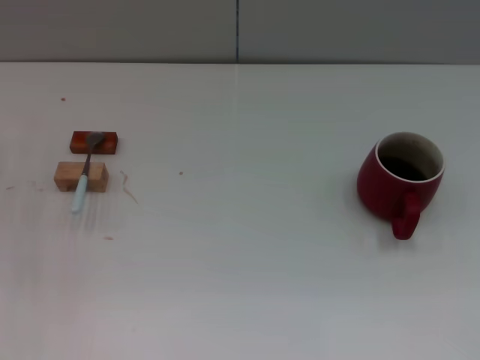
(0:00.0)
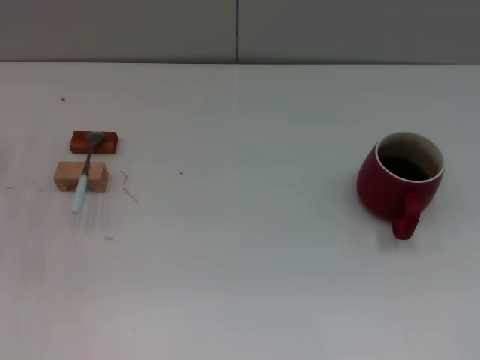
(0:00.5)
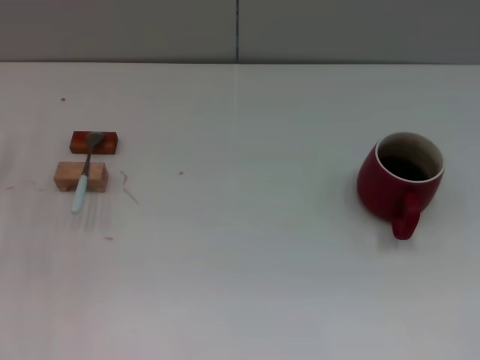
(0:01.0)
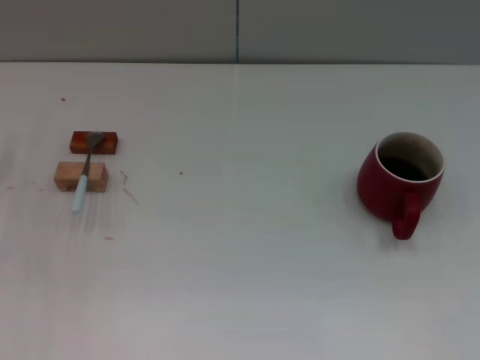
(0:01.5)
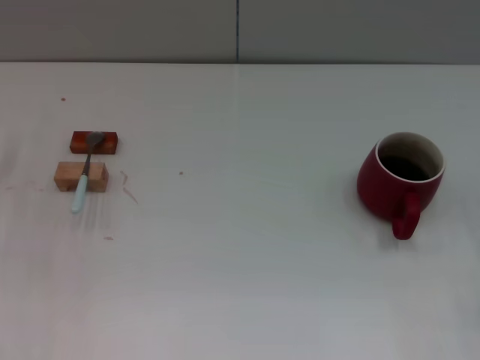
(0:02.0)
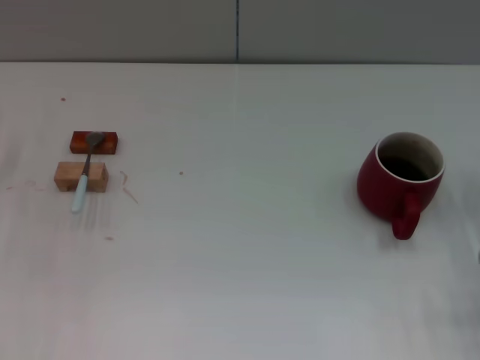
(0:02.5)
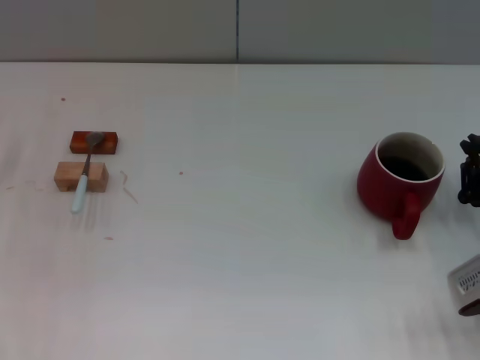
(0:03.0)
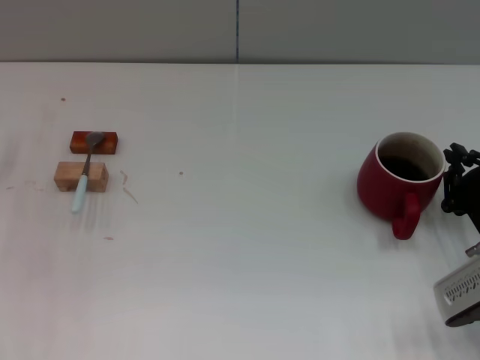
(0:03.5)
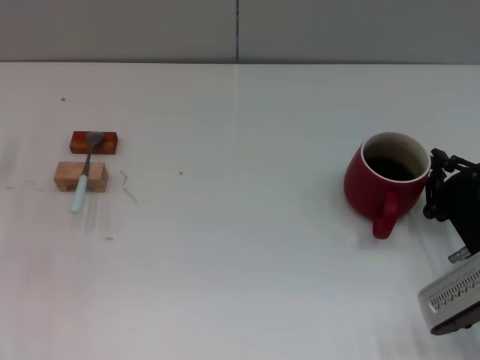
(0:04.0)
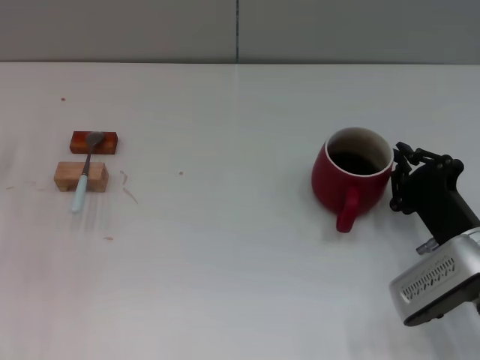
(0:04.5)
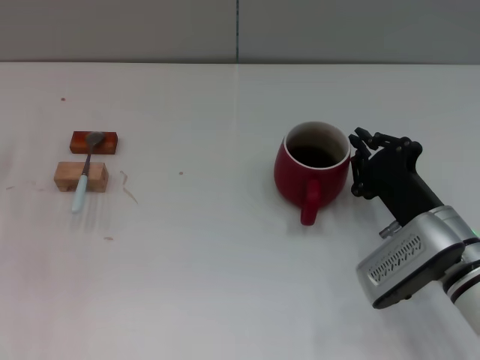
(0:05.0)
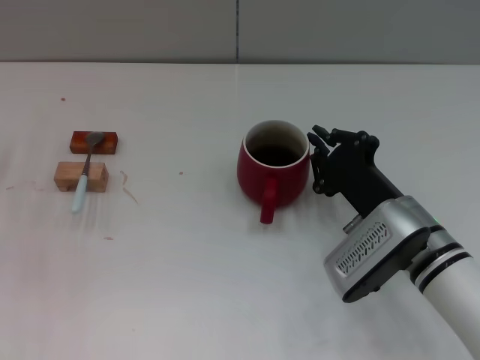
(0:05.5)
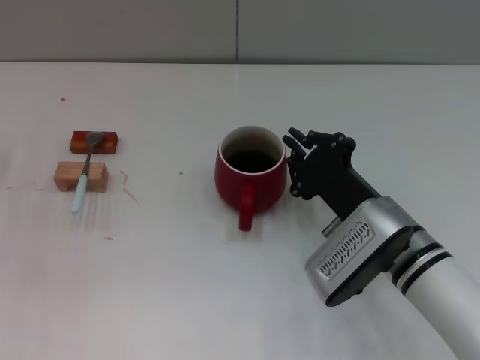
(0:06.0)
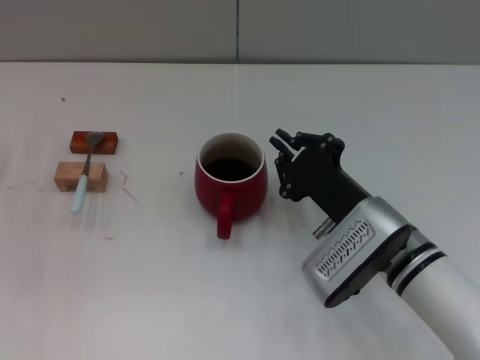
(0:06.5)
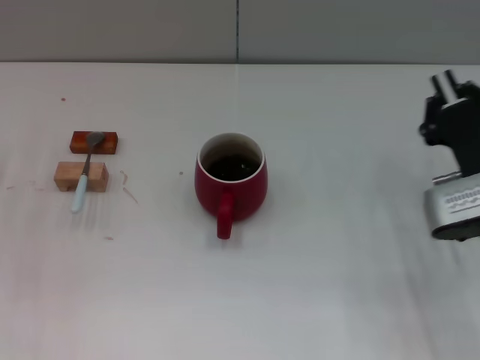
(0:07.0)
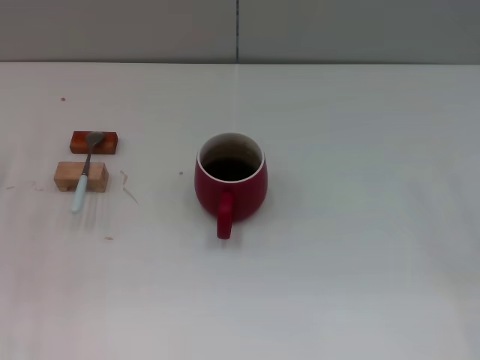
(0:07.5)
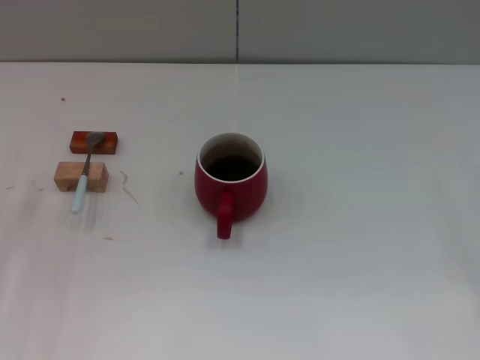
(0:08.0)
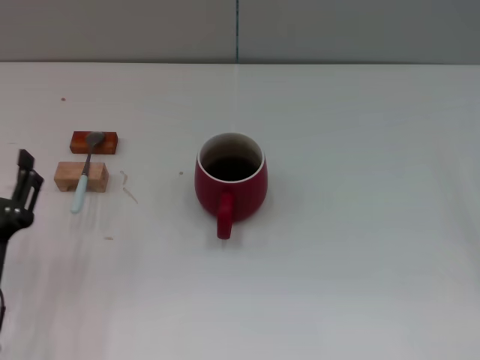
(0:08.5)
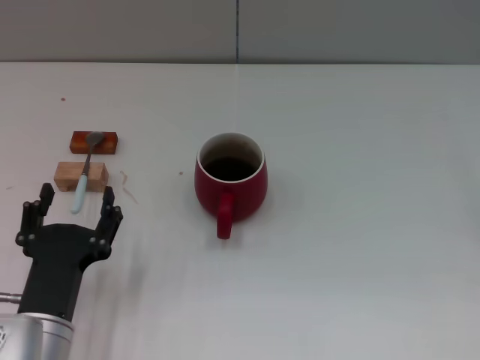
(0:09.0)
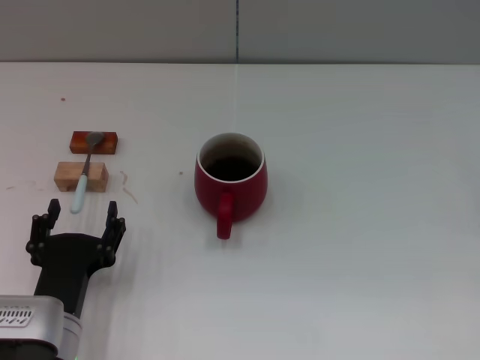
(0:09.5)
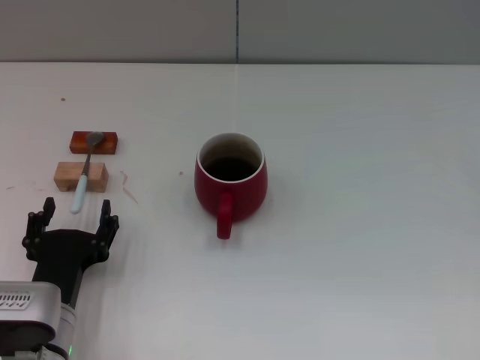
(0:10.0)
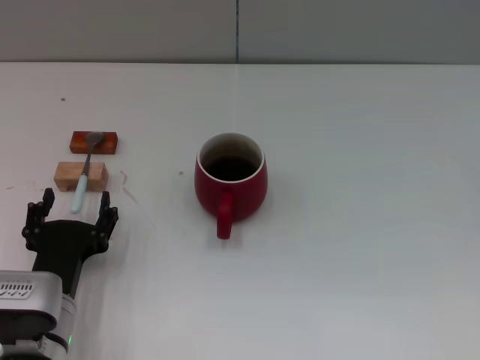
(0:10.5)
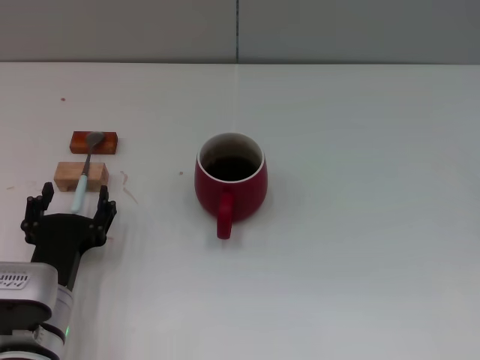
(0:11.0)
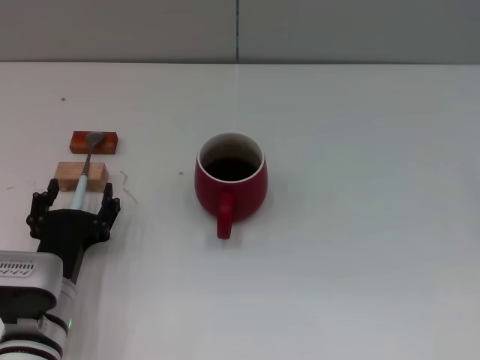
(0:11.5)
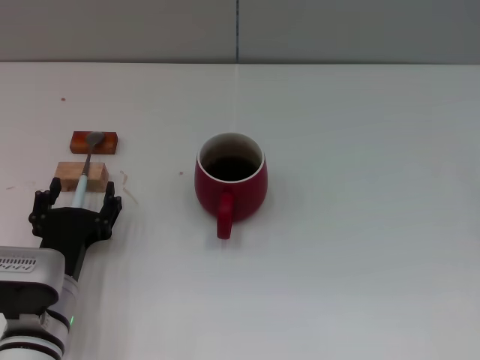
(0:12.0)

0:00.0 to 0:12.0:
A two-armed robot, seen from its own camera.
Task of the whole recording: Move the red cup to the center, lift the blue spoon, stir it three times in the cup, and put the spoon into the cup.
Step, 0:00.0 to 0:06.5: Move the cup with coffee to the center of view with the right gripper.
0:02.0 to 0:04.0: The right gripper travels to the left by roughly 10 cm.
0:04.0 to 0:06.0: The right gripper moves to the left, roughly 10 cm.
0:06.0 to 0:08.0: The right gripper is displaced to the right by about 25 cm, and opens up; the left gripper heads backward, covering roughly 5 cm.
0:08.0 to 0:10.0: The left gripper travels to the right, backward and downward by about 15 cm.
0:10.0 to 0:12.0: The grippers stay close to where they were, moving slightly.

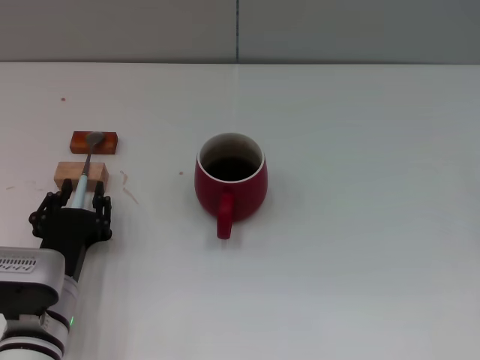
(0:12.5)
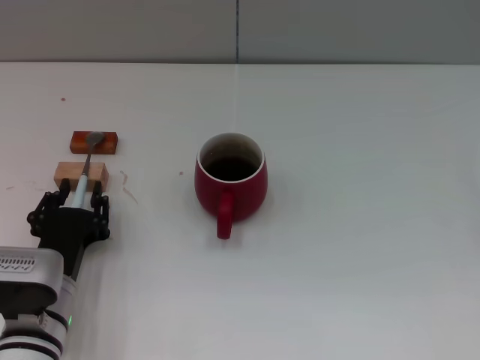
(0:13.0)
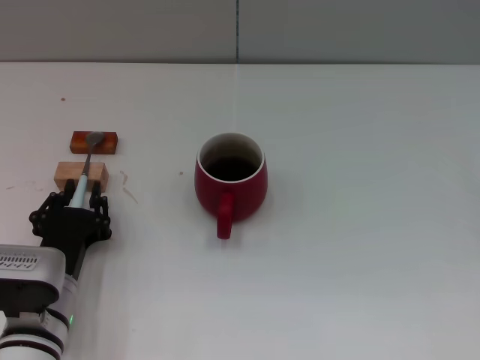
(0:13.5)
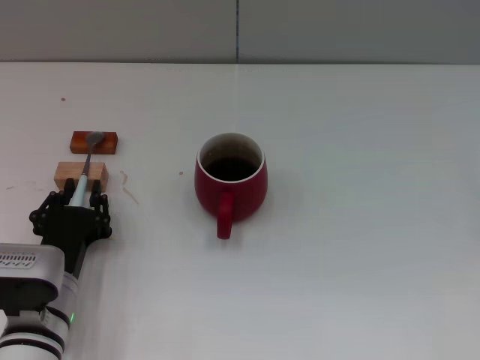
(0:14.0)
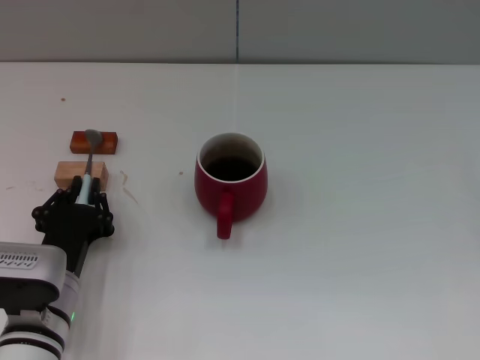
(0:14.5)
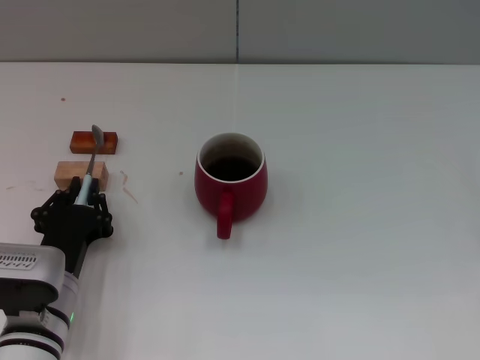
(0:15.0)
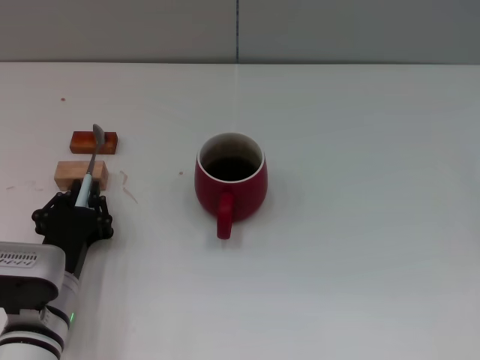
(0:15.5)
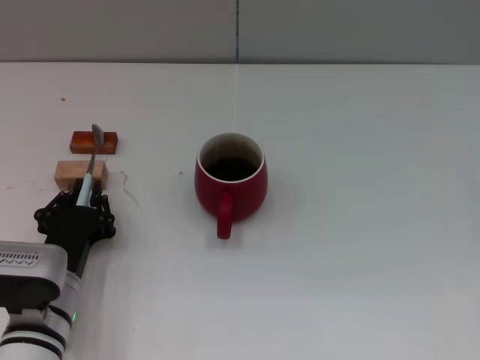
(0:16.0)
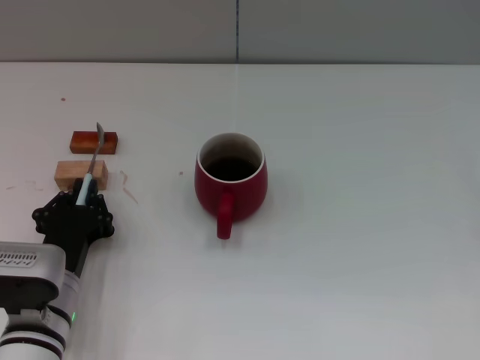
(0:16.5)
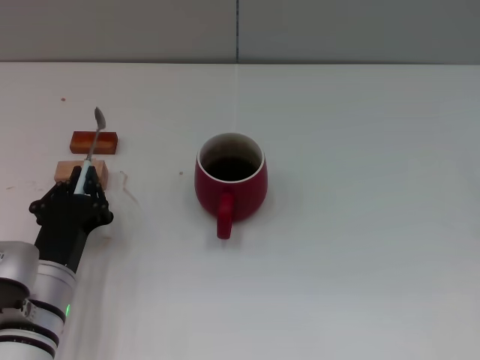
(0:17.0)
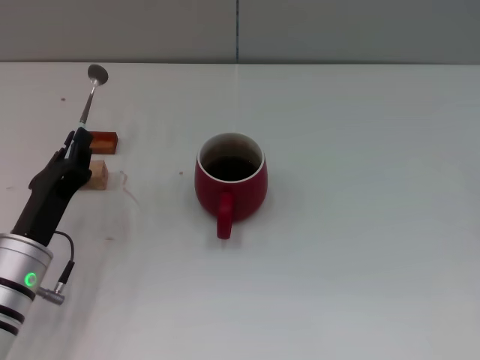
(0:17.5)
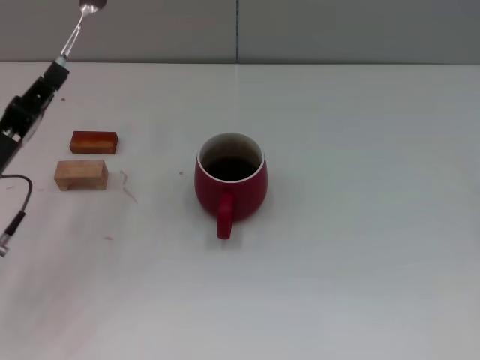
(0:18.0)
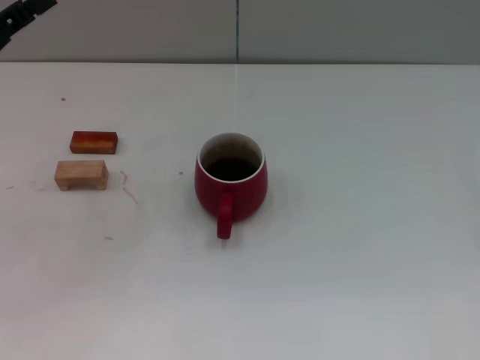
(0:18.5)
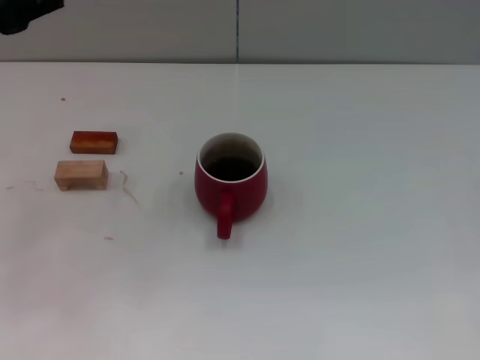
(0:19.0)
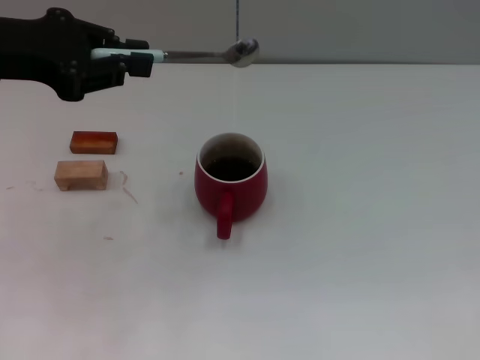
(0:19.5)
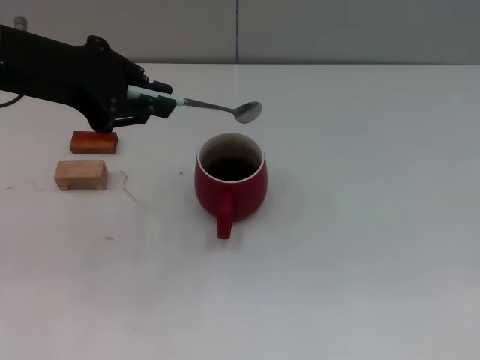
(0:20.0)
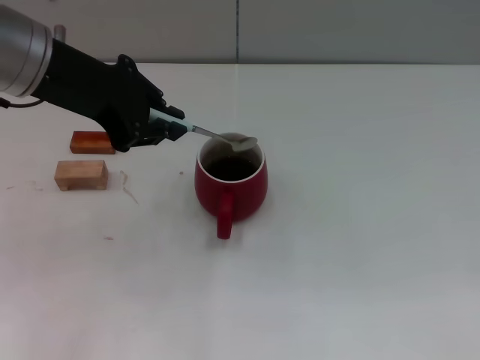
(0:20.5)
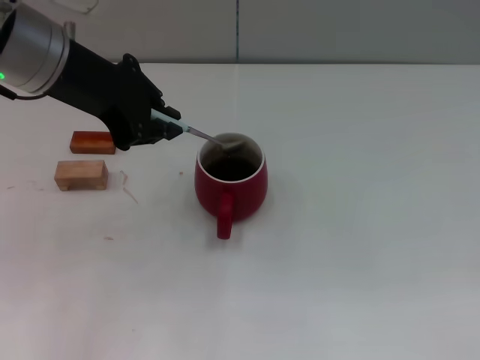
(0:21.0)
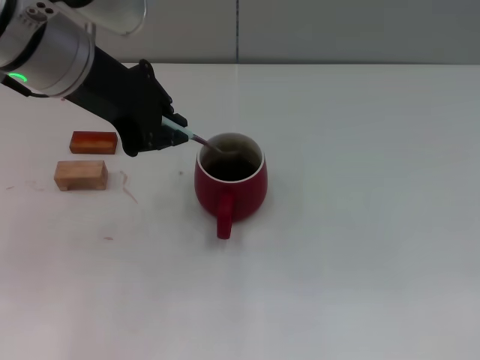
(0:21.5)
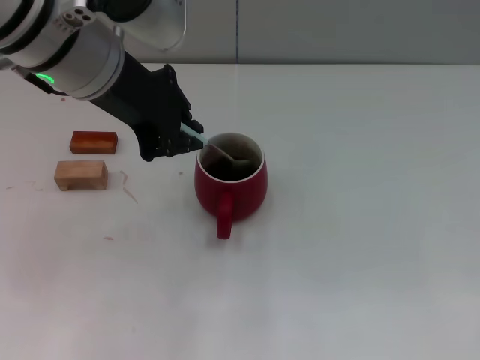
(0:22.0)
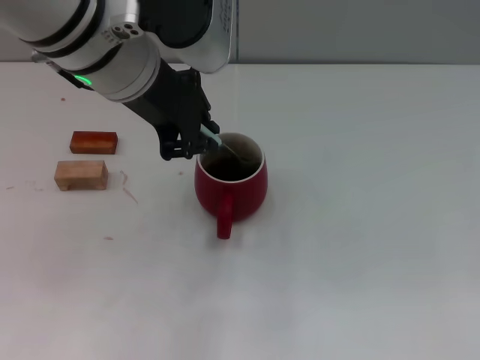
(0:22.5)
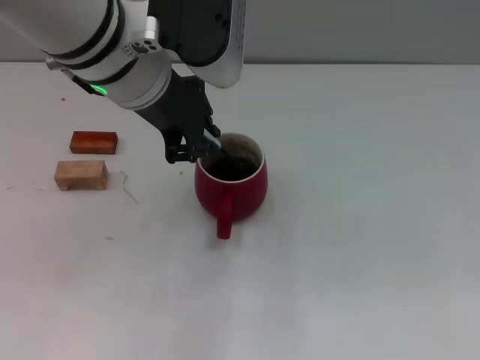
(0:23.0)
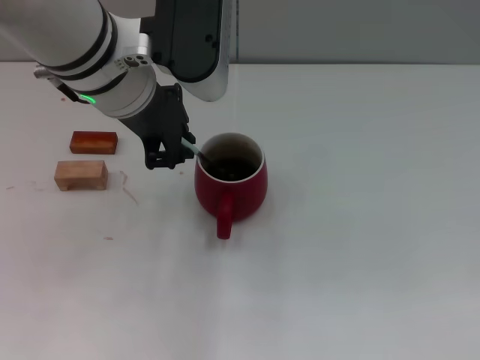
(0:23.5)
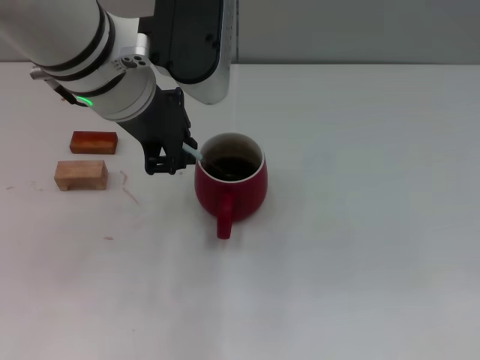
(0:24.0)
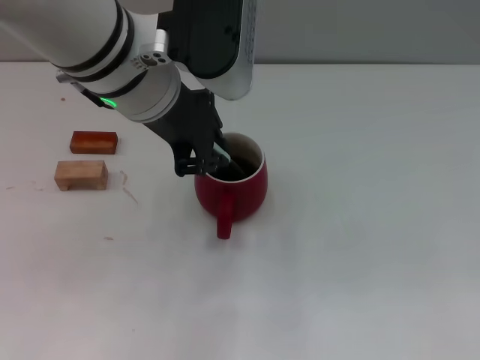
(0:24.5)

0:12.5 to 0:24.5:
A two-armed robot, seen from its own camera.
Task of the whole recording: Move the red cup to the center, lift the blue spoon, stir it three times in the cup, and put the spoon into the cup.
Step, 0:12.5 to 0:17.5: Pick up the spoon with the left gripper.
0:12.5 to 0:14.5: The left gripper closes its fingers.
0:14.5 to 0:16.5: Both grippers stay about where they are.
0:16.5 to 0:18.5: The left gripper goes roughly 25 cm upward, to the left and forward.
0:18.5 to 0:20.5: The left gripper travels to the right and upward by some 15 cm.
0:20.5 to 0:22.5: The left gripper travels to the right by roughly 10 cm.
0:22.5 to 0:24.5: The grippers move only a little.

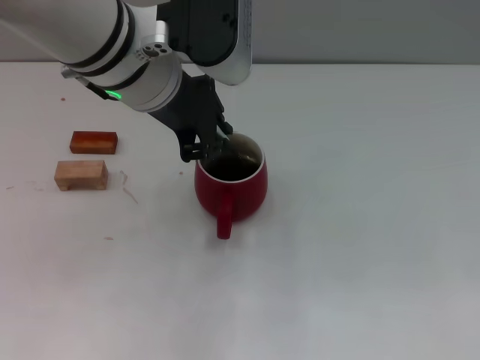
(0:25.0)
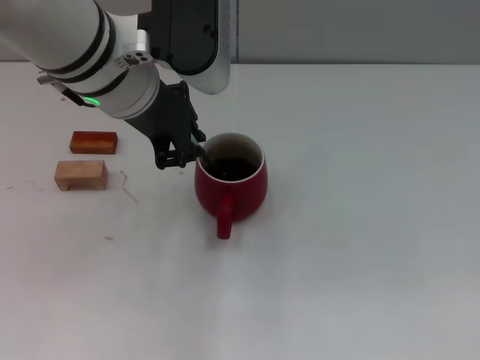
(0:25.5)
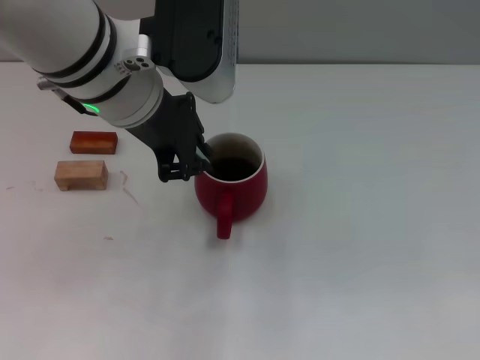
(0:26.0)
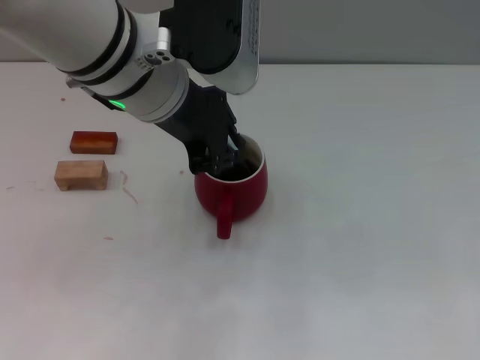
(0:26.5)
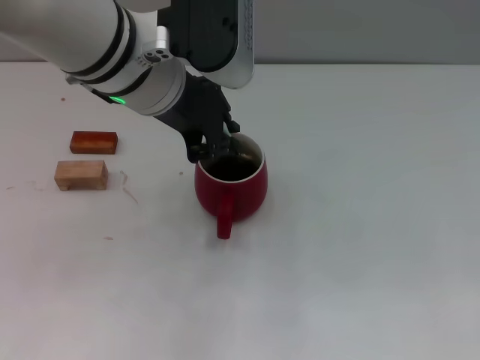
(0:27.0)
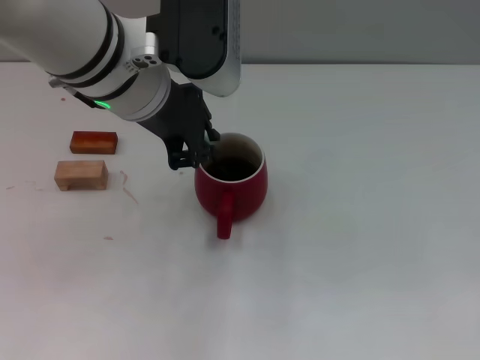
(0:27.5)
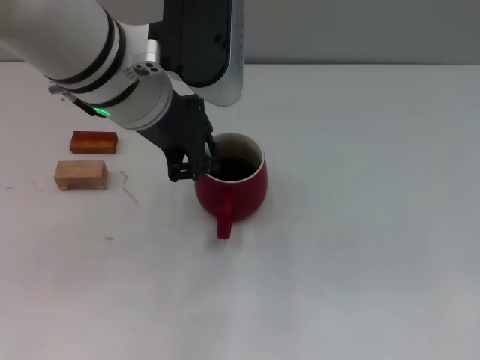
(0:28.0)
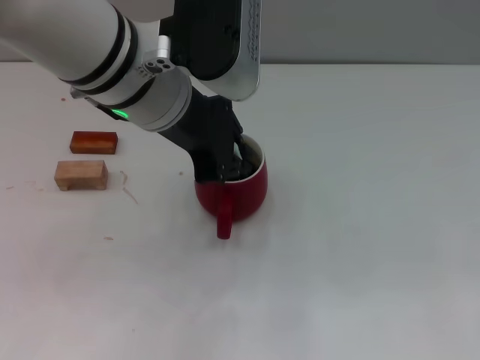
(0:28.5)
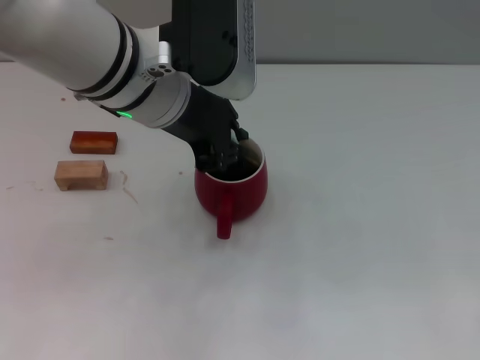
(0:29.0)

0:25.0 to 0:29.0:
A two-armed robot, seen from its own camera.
Task of the whole recording: Move the red cup to the center, lift the blue spoon, stir it three times in the cup, and put the spoon into the cup.
0:25.0 to 0:29.0: There are only small adjustments of the grippers.
